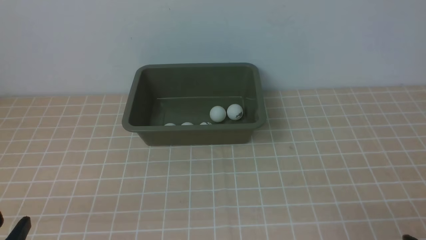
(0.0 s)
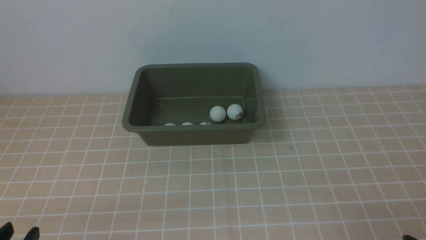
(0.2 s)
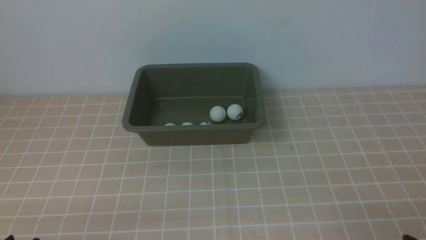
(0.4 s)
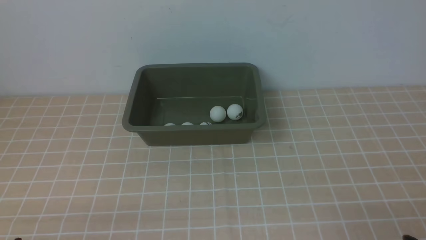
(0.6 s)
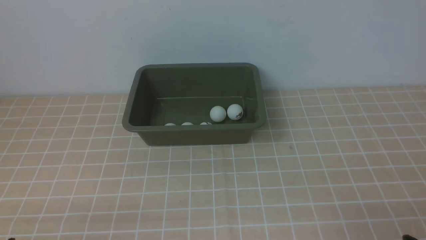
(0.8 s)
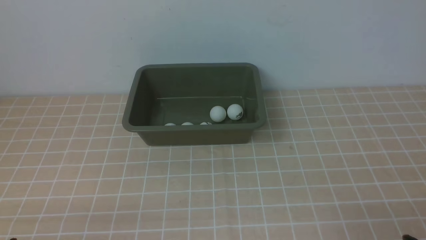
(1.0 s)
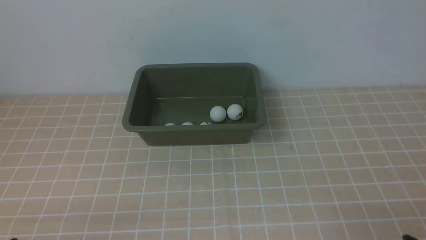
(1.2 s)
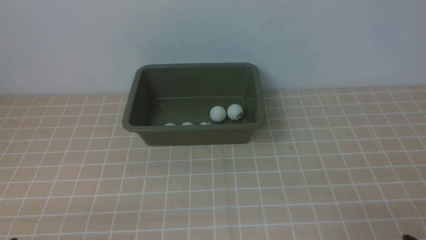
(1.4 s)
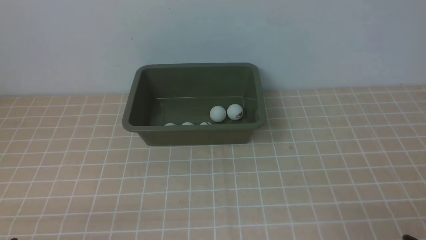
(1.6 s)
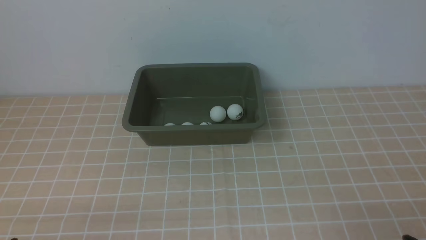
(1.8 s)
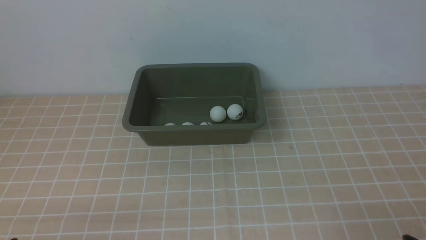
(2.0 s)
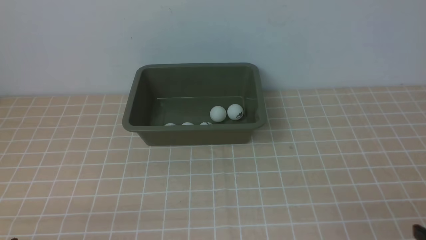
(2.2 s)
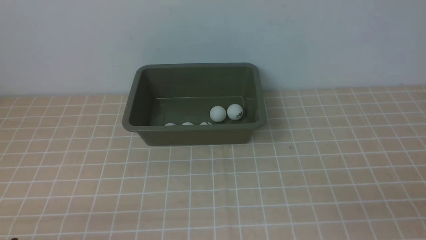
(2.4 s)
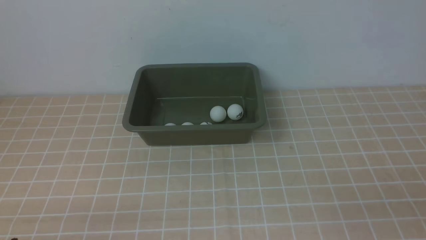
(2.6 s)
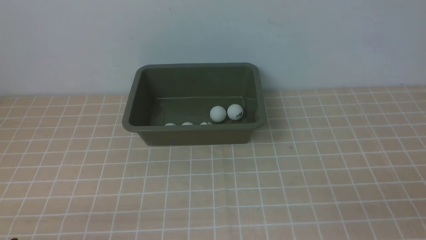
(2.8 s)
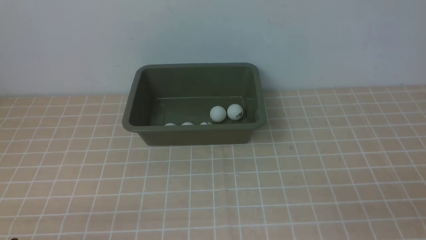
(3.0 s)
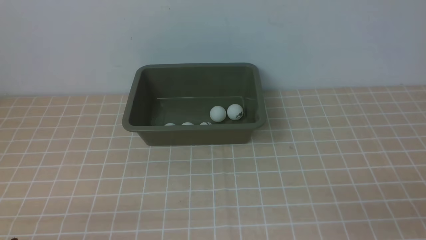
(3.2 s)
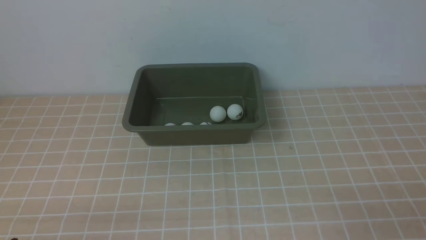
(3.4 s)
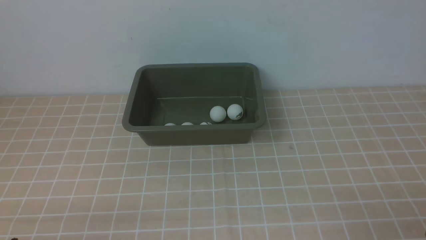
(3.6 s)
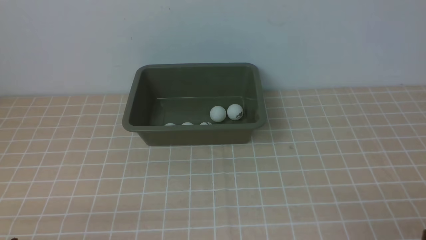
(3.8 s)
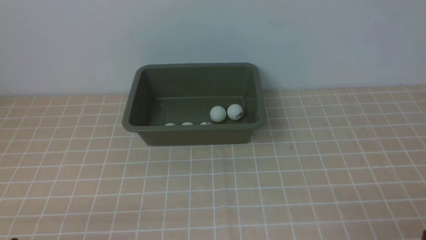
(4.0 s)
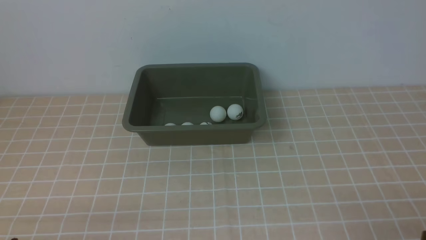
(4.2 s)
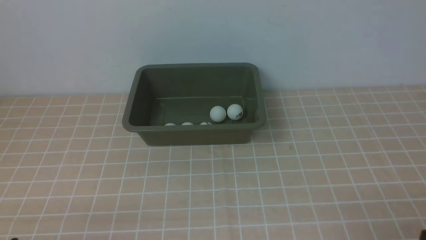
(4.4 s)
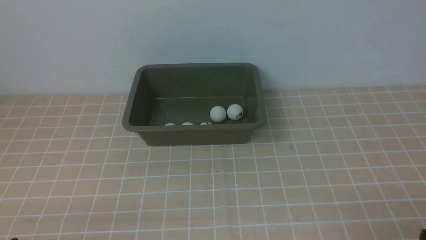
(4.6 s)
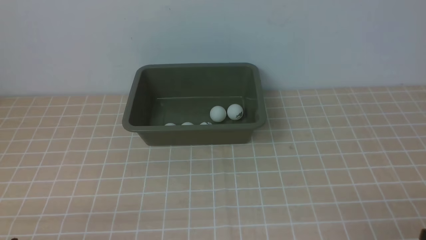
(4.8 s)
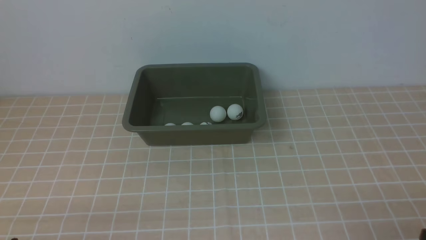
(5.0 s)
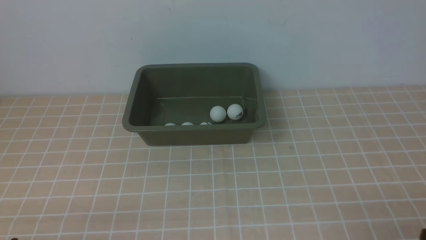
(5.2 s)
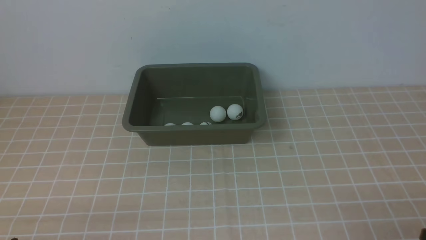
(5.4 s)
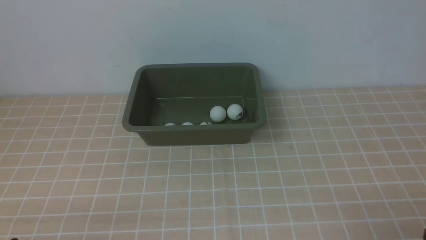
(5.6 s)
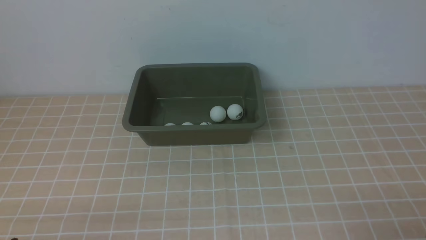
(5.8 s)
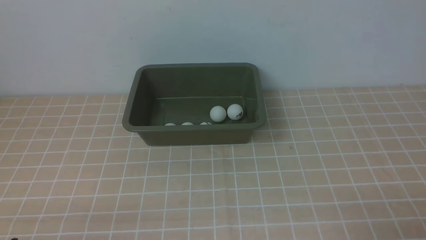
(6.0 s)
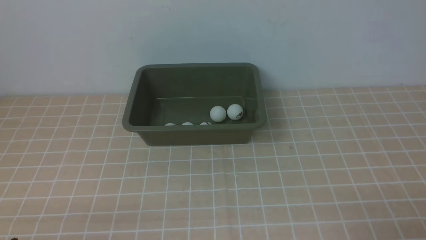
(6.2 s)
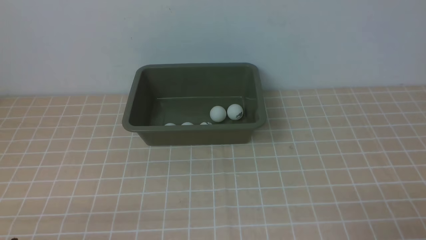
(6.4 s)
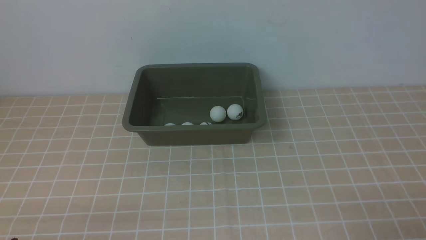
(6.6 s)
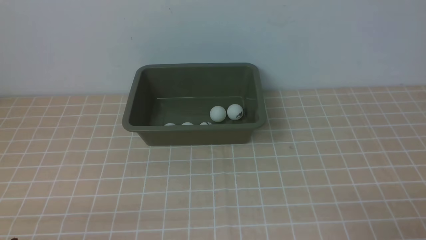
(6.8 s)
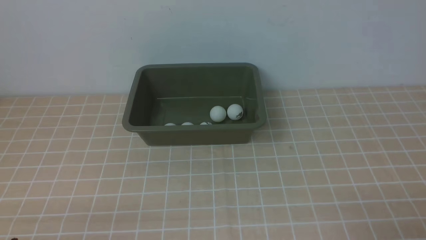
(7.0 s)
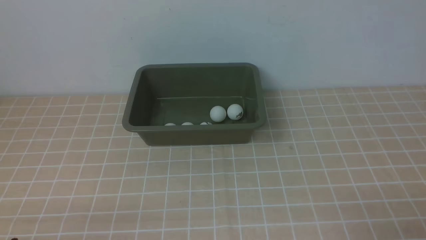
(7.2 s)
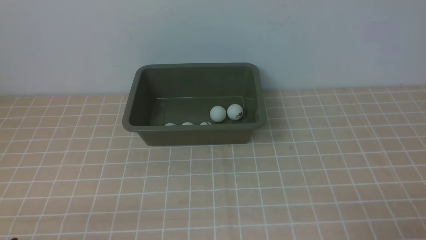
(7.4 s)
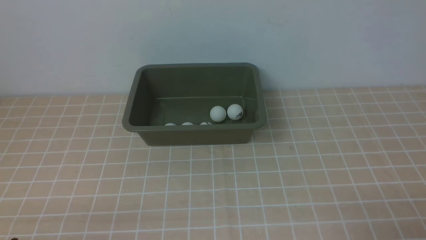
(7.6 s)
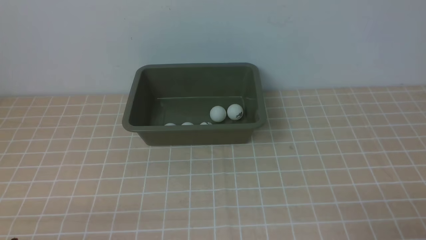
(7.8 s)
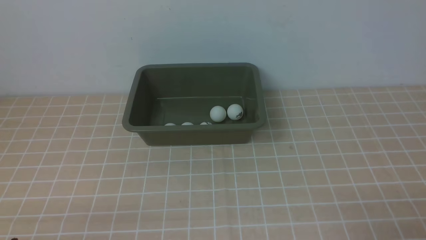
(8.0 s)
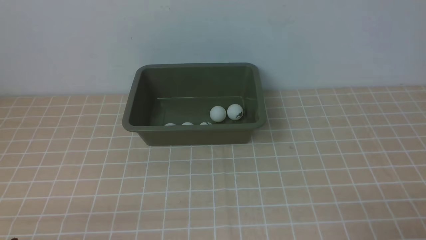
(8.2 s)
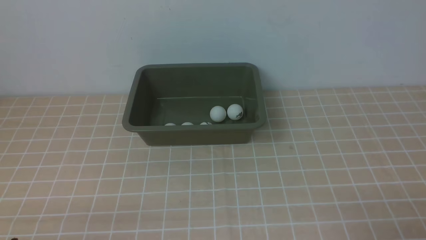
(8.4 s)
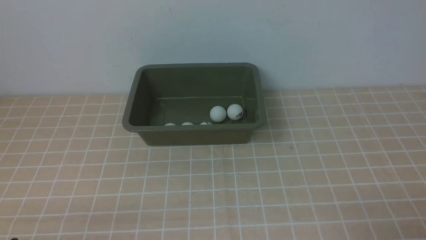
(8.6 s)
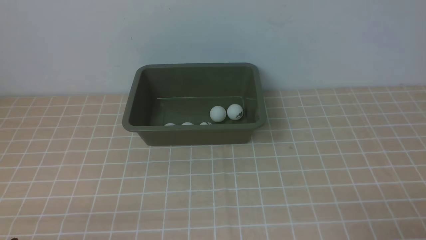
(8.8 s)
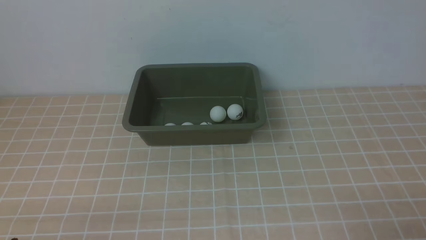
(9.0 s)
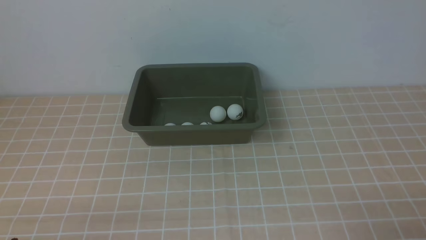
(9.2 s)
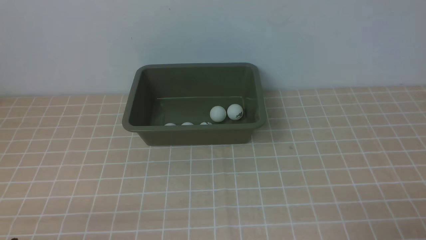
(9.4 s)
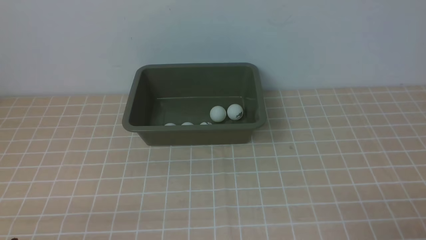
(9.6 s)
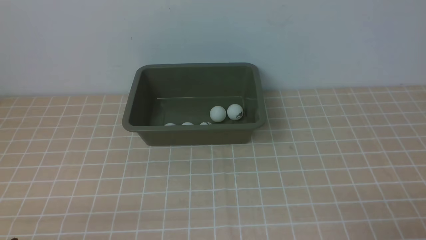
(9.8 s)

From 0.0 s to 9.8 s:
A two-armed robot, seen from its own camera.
From 4.2 s to 9.8 s: Neither gripper changes place.
